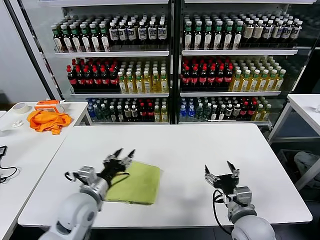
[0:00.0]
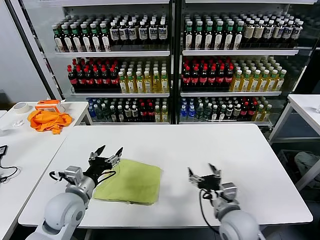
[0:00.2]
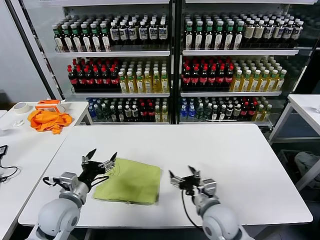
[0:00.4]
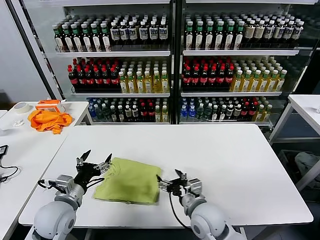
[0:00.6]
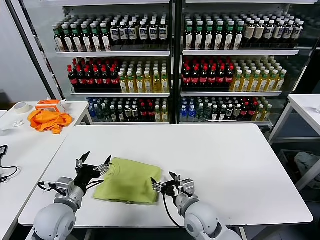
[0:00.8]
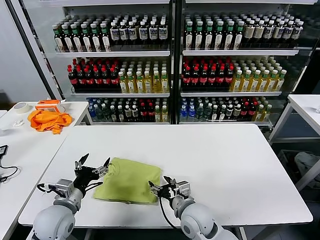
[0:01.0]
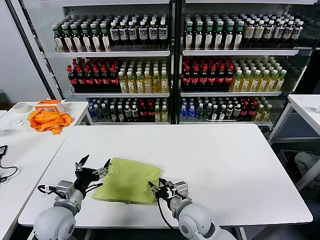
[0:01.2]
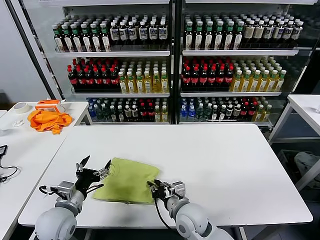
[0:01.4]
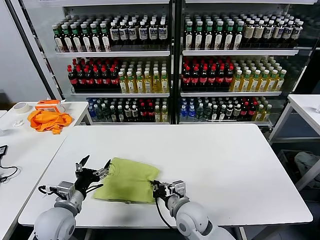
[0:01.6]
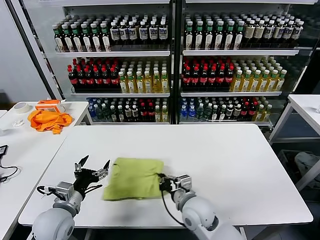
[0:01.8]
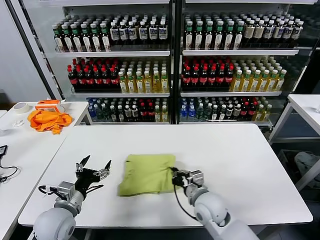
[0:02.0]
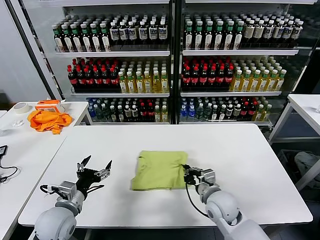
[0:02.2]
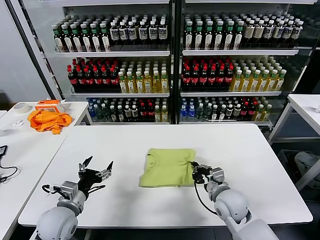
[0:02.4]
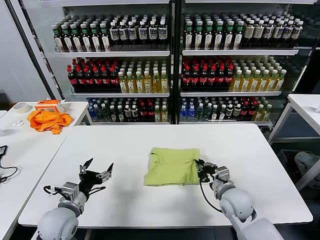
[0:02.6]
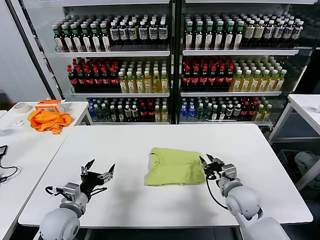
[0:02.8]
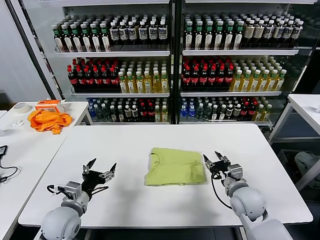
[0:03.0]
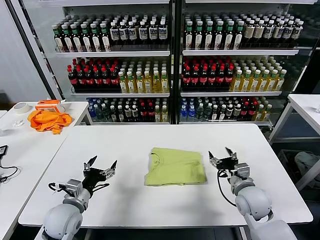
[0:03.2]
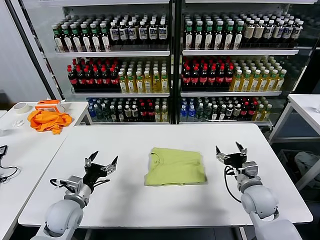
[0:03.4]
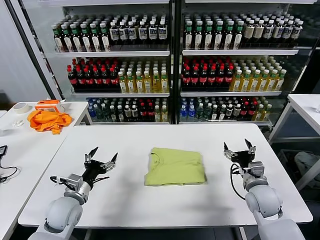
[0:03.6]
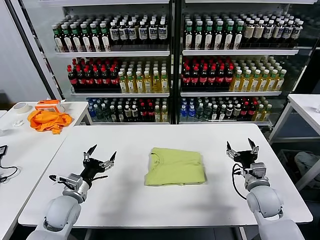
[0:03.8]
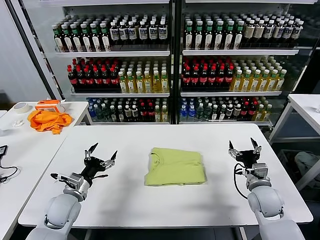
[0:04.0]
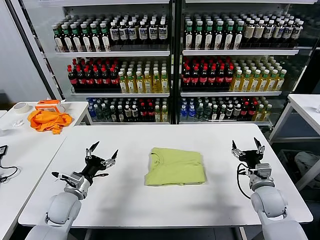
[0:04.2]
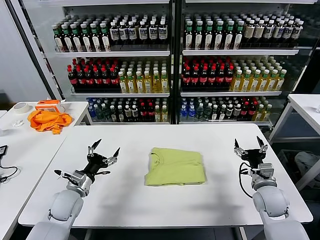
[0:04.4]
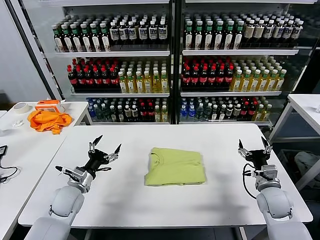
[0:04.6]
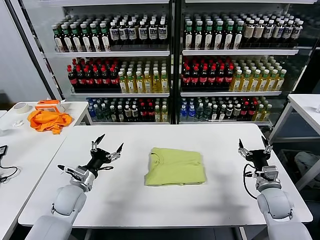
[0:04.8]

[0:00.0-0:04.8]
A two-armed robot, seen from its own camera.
Task of the whole recording: fold and organize the clothes.
Step, 0:00.0 to 0:02.6: Drag the clothes to the center of the table.
0:00.0 to 0:01.6: The left gripper heads to the left, covering about 10 cm, and opens up; the right gripper heads to the left, forward and downward, covering some 15 cm, and closes up.
0:01.6 to 0:03.2: The right gripper moves to the right, about 20 cm, and opens.
0:03.2 to 0:04.8: The right gripper travels to the right by roughly 10 cm, while the left gripper moves forward, some 5 cm.
